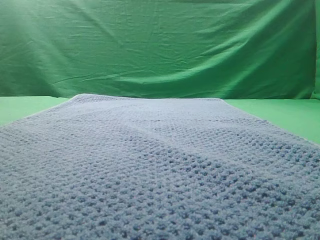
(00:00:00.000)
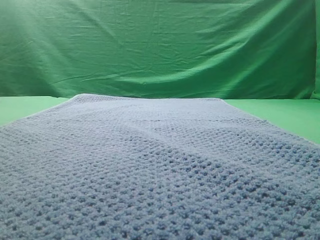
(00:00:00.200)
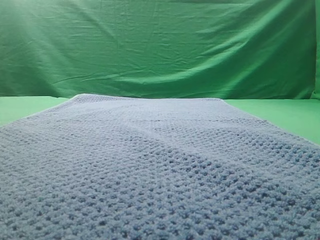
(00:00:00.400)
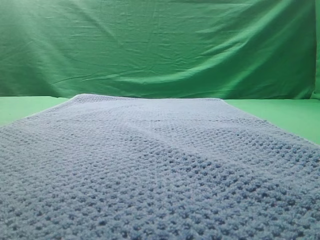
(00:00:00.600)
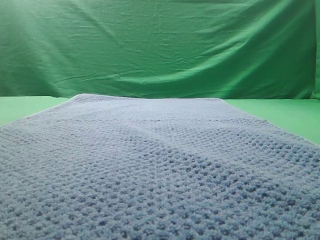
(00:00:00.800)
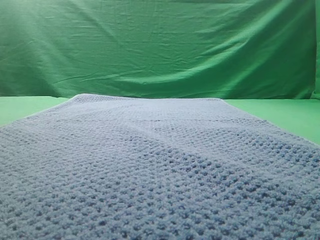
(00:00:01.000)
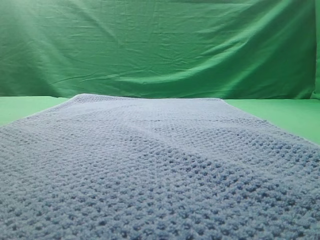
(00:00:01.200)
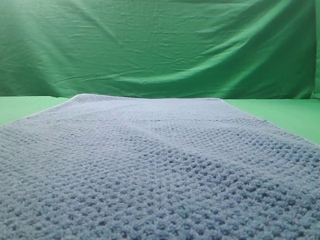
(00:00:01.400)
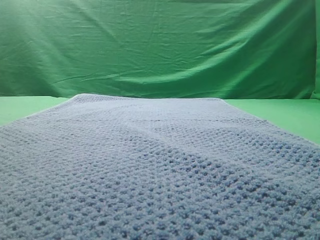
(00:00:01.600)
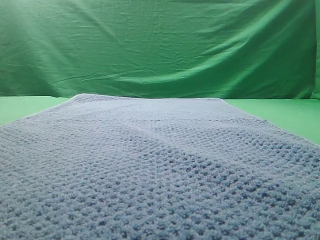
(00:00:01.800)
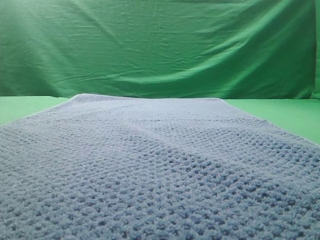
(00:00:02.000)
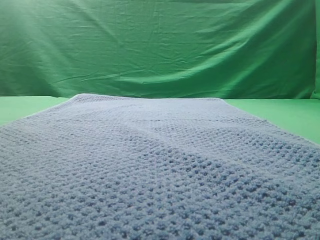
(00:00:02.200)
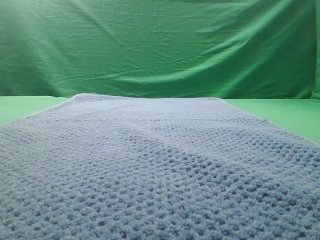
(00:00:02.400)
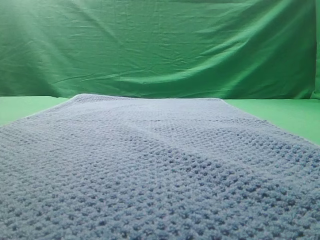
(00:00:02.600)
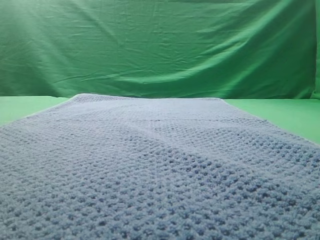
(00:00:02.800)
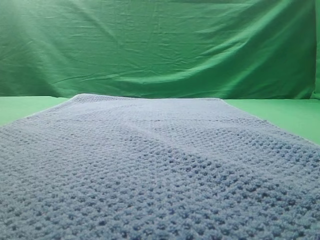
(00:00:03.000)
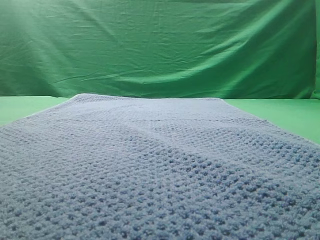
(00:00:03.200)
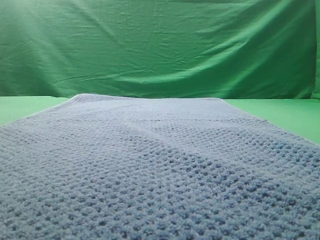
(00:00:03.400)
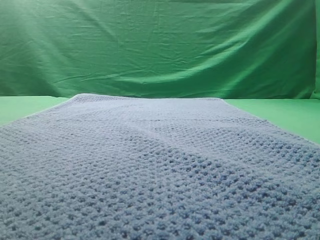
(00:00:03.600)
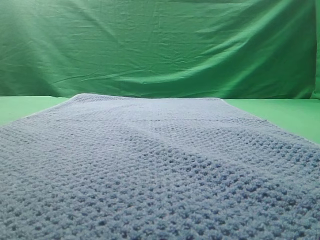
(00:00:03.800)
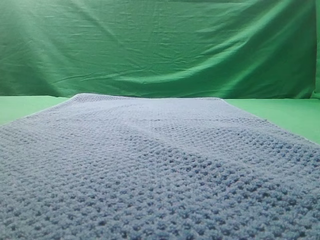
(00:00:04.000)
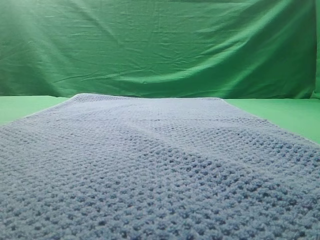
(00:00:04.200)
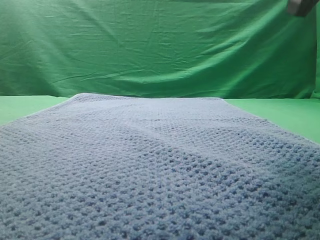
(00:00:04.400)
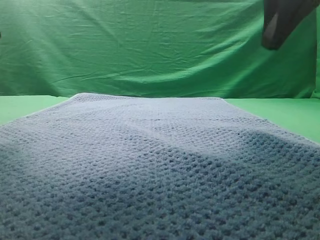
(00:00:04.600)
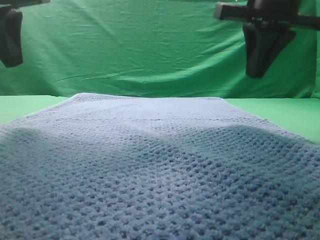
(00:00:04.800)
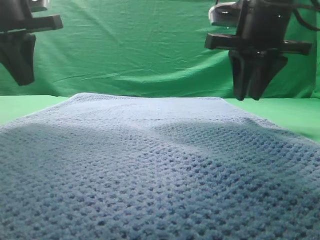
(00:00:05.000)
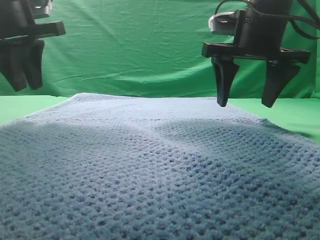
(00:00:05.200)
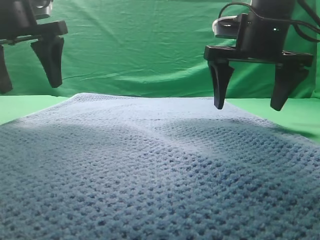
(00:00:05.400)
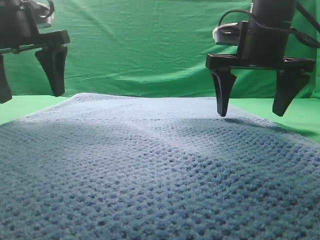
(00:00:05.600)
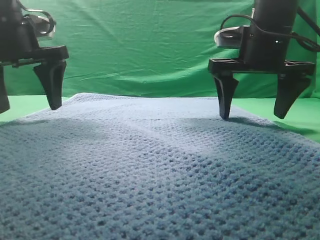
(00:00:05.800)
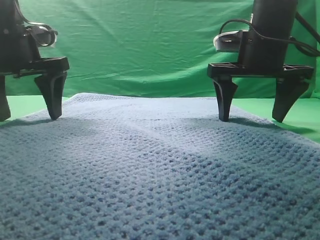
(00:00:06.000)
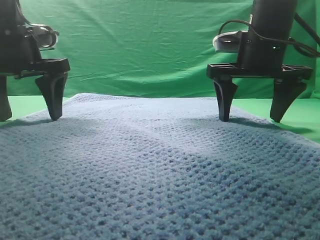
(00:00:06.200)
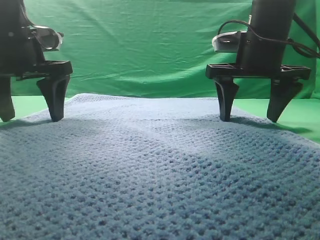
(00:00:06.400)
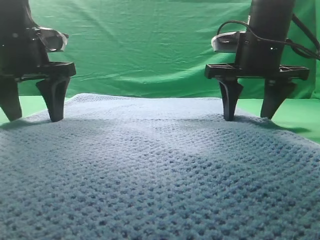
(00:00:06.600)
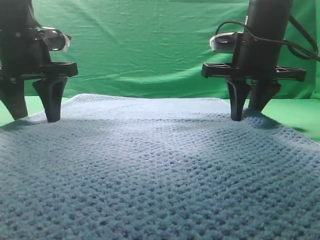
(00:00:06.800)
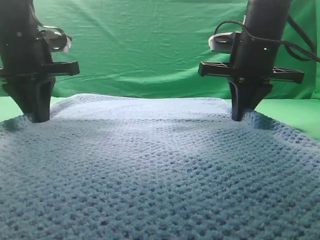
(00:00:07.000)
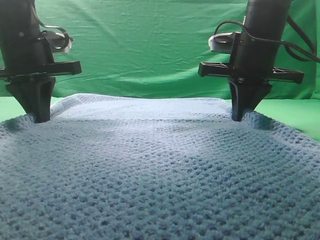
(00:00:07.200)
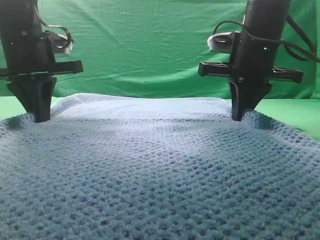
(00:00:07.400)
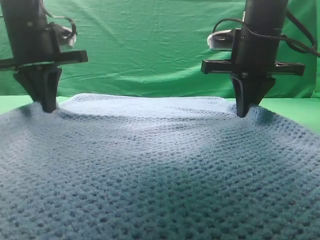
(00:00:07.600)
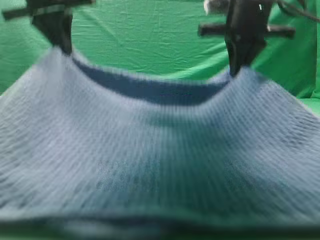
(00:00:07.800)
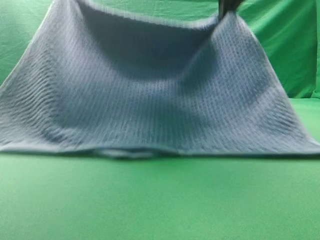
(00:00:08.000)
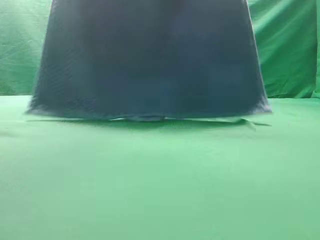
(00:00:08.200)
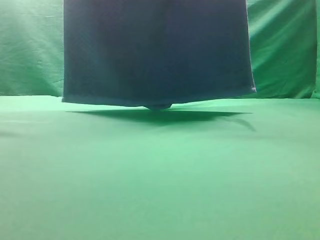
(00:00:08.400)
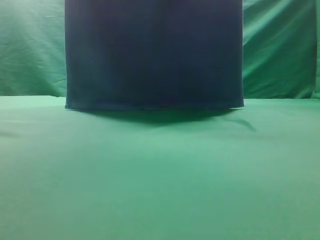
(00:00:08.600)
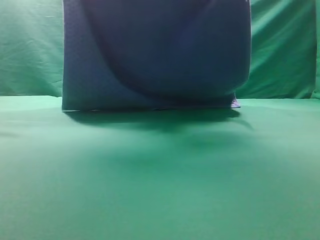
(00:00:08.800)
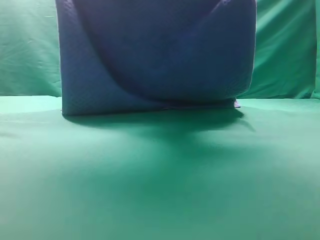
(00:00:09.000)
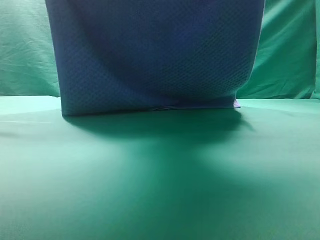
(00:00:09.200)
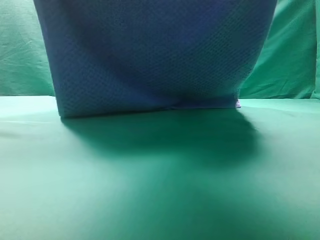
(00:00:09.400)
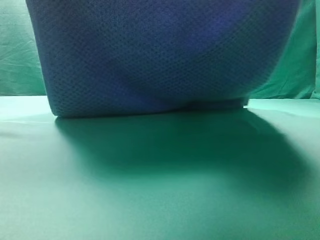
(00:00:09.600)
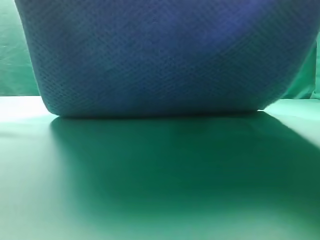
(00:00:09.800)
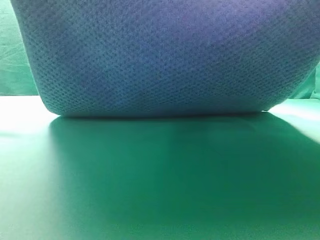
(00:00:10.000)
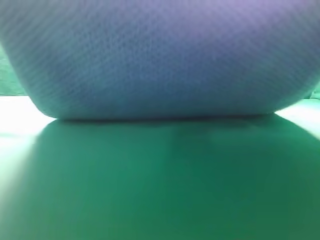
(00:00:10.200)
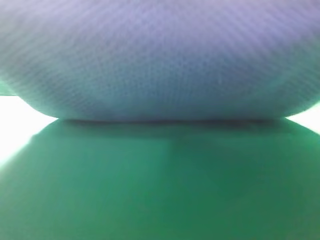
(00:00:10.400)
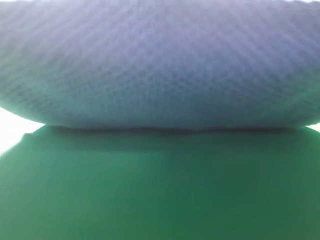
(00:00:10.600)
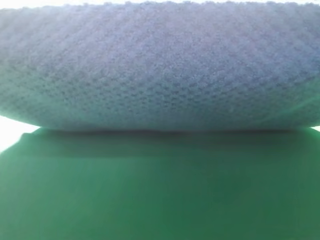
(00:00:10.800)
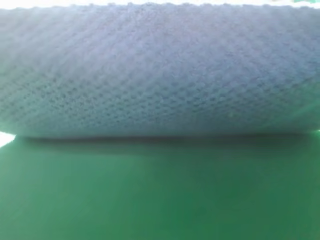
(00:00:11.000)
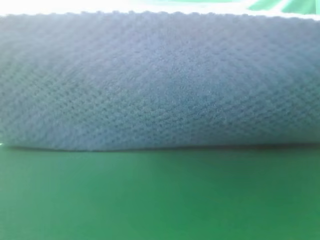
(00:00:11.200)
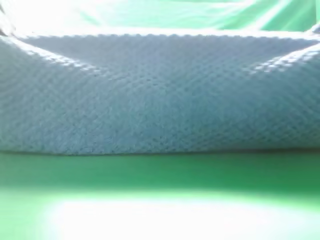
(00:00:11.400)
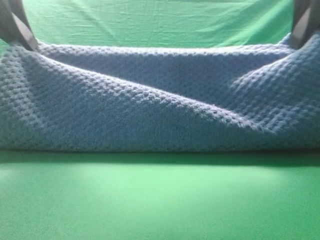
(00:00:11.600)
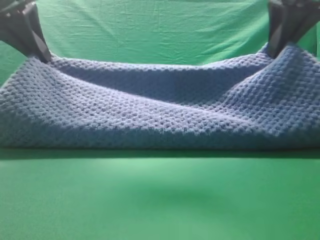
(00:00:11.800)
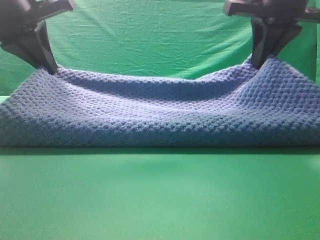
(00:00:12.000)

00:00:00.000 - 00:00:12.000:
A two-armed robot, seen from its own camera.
Task of the whole recording: fold the towel on the table twice.
Step, 00:00:00.000 - 00:00:08.200: pick up the towel with two arm.

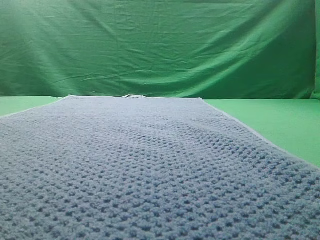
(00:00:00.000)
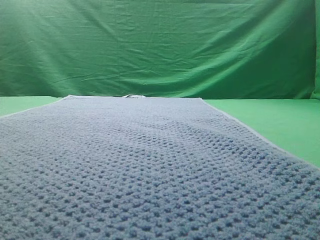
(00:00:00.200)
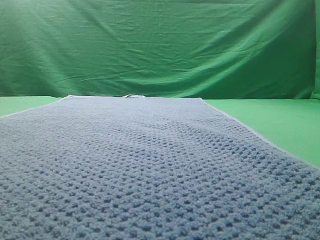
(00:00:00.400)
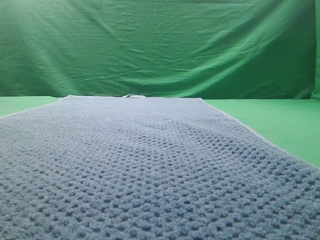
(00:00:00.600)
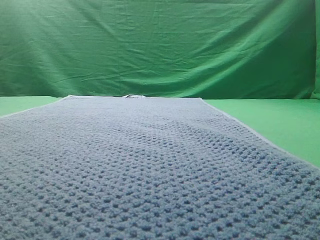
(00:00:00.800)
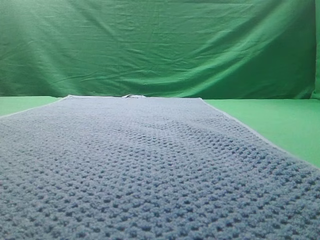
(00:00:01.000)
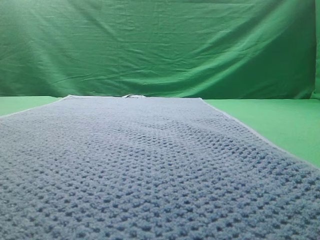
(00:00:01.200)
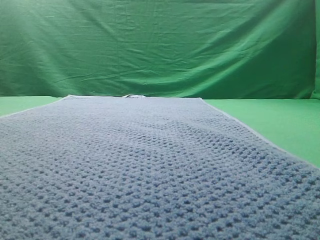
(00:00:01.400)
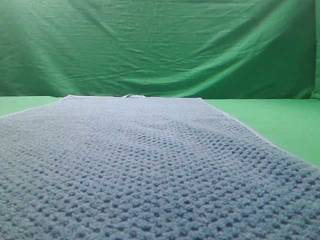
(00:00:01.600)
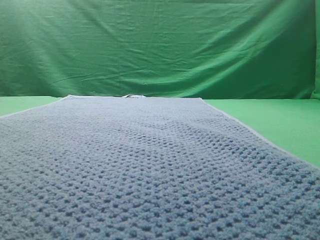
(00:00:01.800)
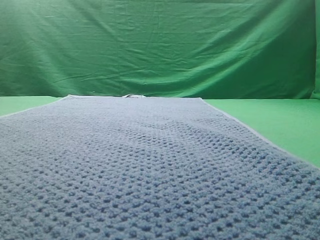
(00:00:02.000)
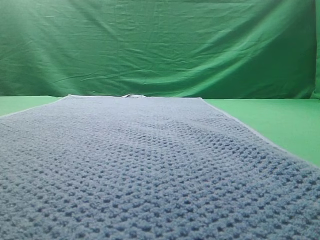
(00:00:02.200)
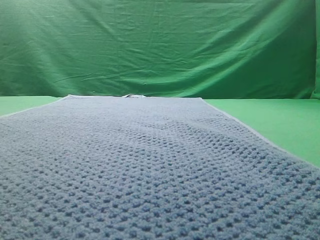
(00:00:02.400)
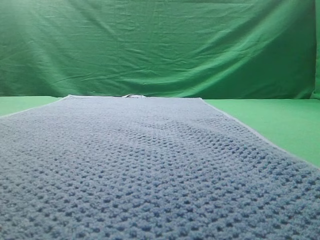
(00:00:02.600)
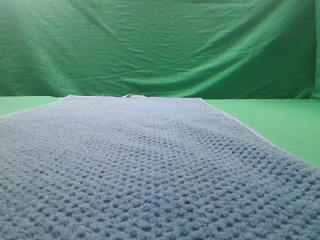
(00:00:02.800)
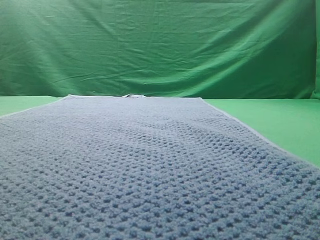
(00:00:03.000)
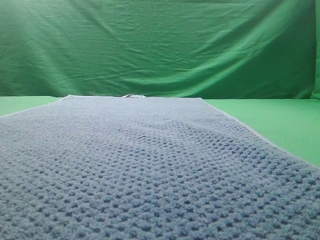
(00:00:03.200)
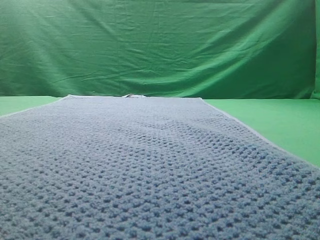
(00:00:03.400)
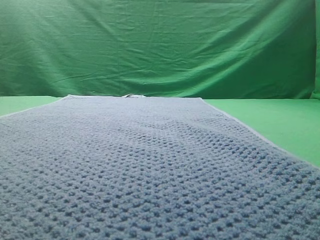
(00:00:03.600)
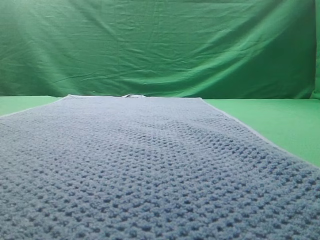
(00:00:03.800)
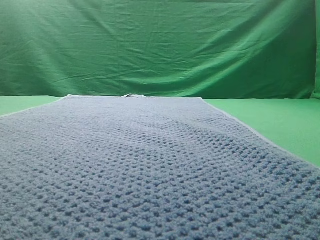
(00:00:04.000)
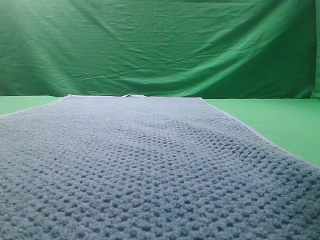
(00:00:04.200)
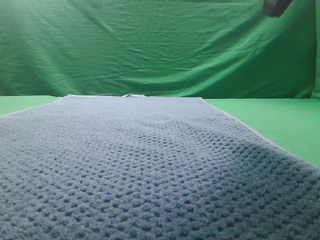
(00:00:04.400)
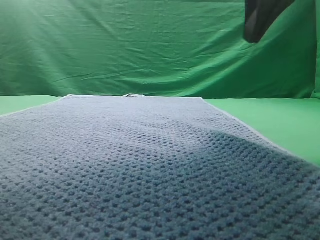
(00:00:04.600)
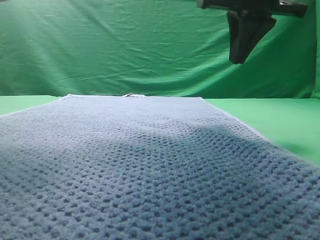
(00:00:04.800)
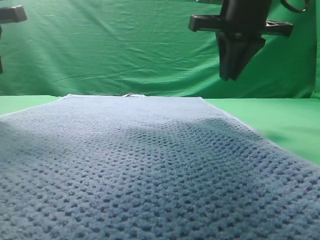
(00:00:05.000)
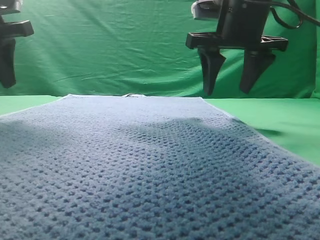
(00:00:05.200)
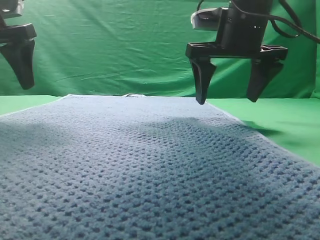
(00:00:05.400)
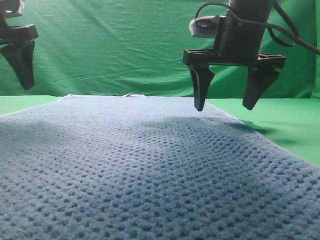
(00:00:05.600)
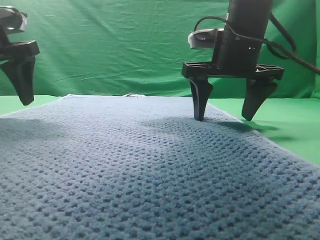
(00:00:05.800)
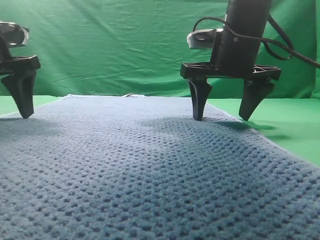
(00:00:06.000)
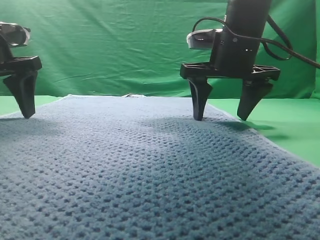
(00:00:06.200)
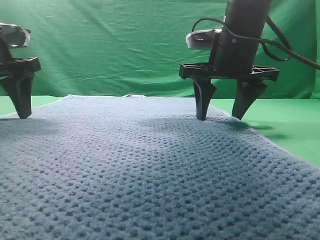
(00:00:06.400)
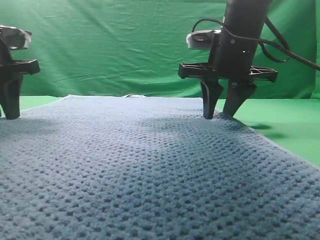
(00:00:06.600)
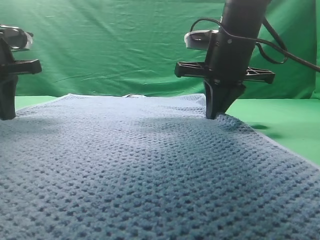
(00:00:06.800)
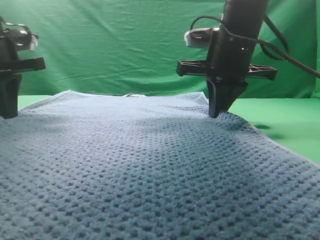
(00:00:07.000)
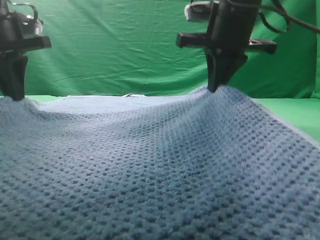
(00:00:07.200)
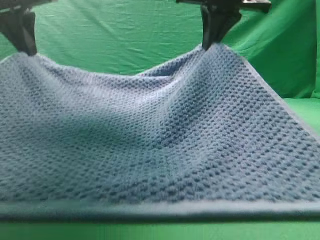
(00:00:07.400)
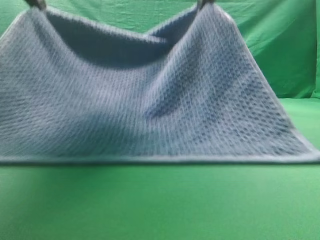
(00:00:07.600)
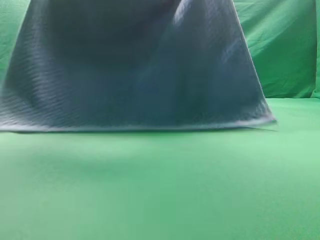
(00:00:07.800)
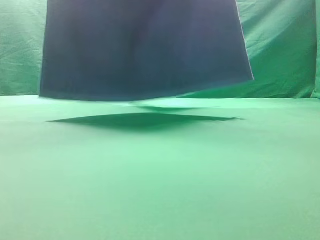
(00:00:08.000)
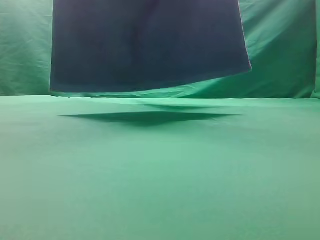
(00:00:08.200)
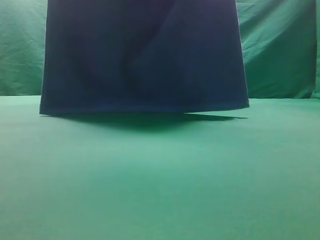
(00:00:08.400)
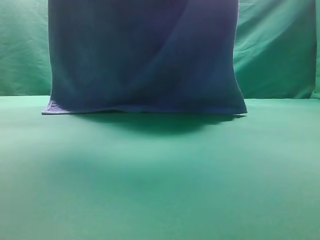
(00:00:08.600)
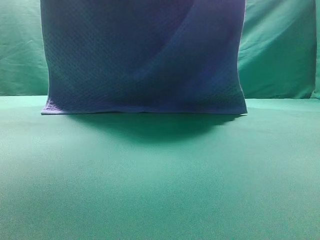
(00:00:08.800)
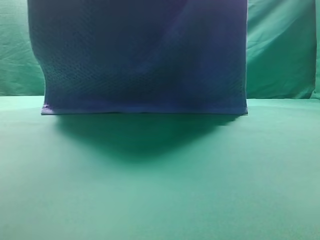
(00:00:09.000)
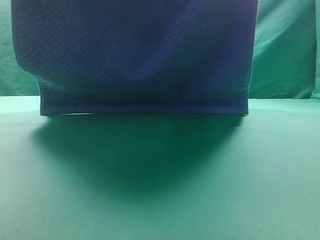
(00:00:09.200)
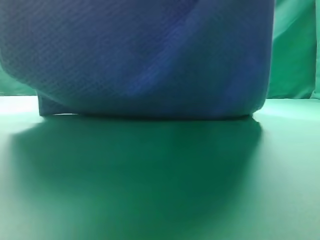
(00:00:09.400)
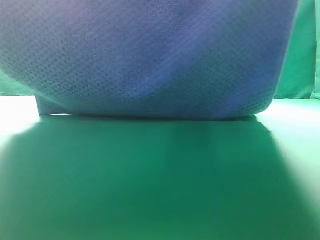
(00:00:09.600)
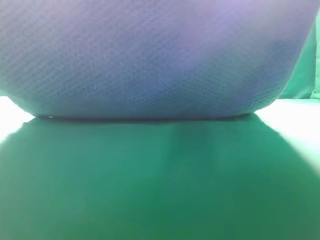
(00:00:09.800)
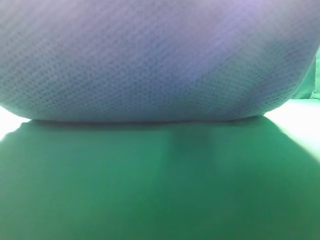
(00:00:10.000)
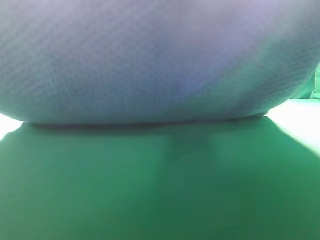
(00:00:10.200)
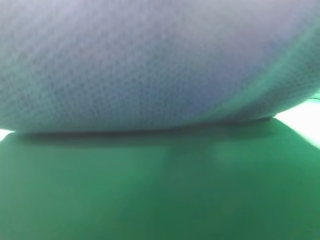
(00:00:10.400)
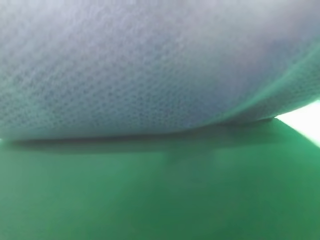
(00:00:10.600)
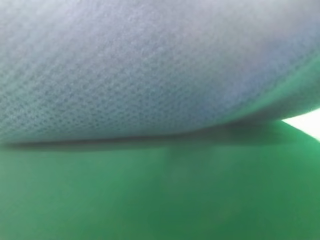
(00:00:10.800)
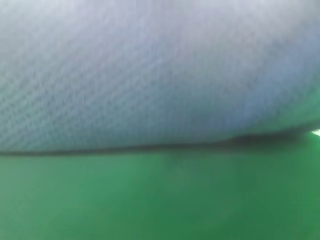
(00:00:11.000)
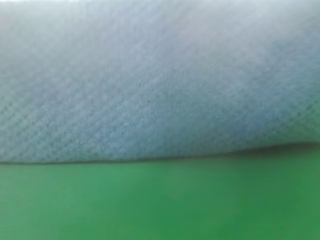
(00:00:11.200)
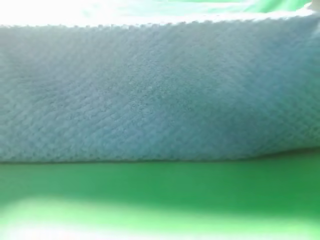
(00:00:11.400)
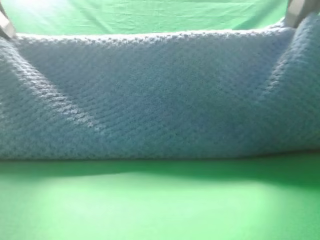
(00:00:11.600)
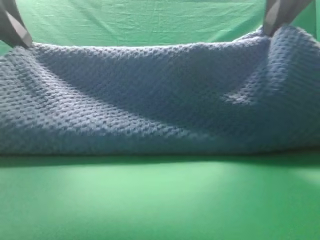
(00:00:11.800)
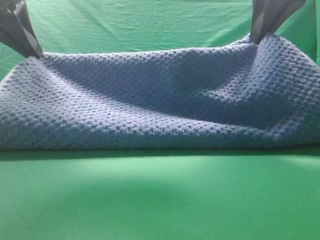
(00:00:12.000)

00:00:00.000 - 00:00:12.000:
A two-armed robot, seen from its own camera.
Task of the whole recording: fold the towel on the table twice.
Step, 00:00:00.000 - 00:00:08.000: pick up the towel with two arm.
